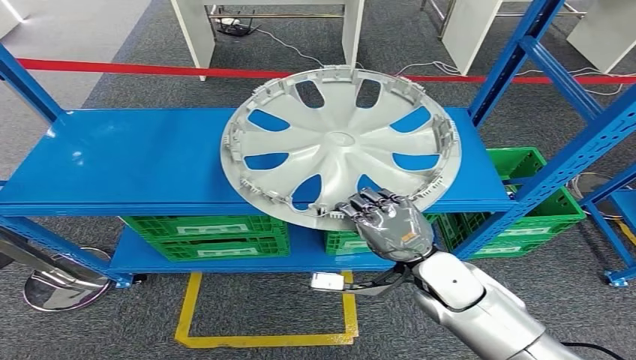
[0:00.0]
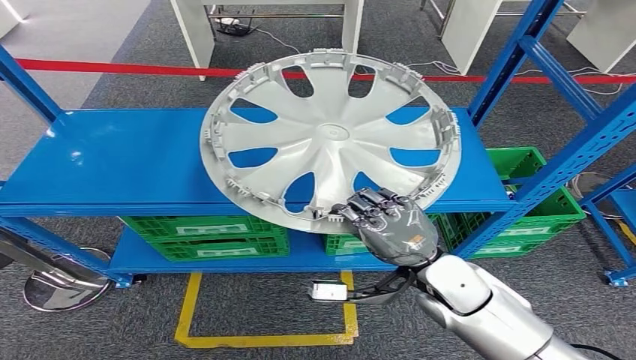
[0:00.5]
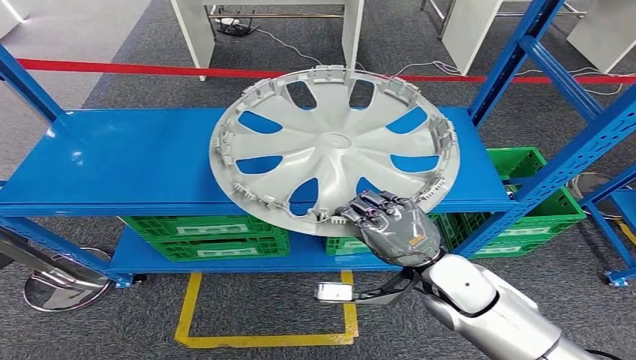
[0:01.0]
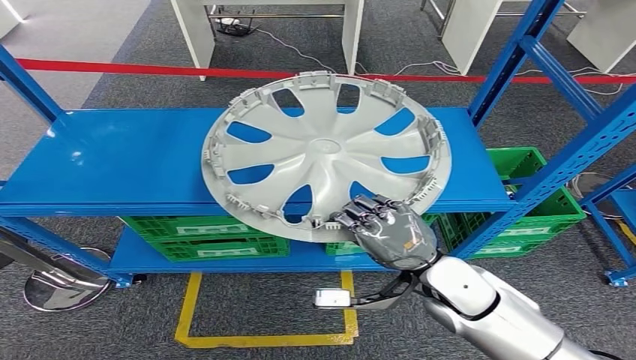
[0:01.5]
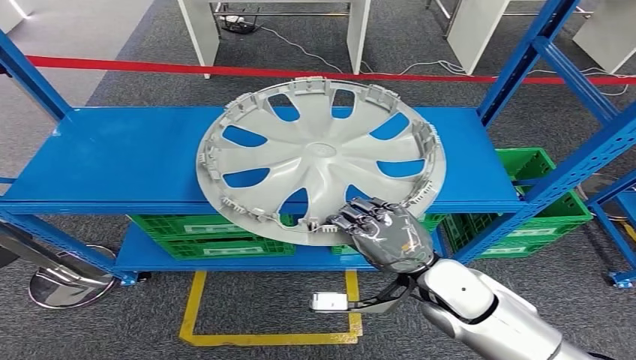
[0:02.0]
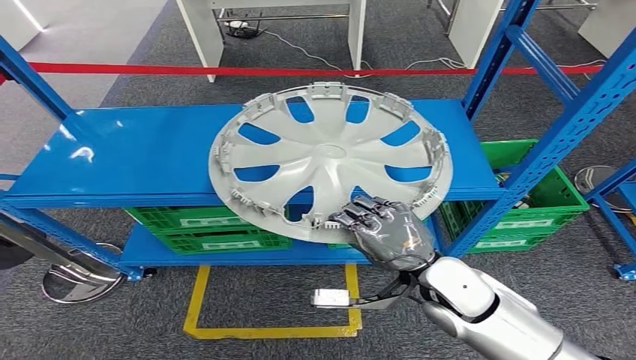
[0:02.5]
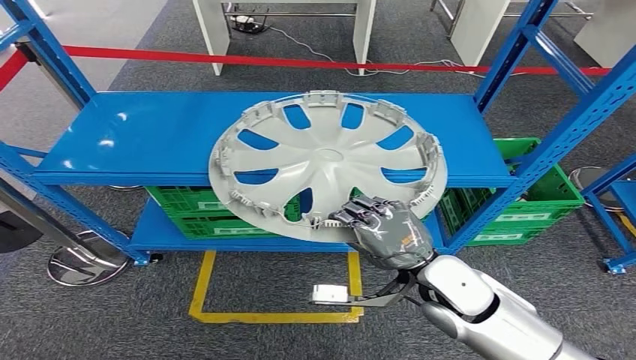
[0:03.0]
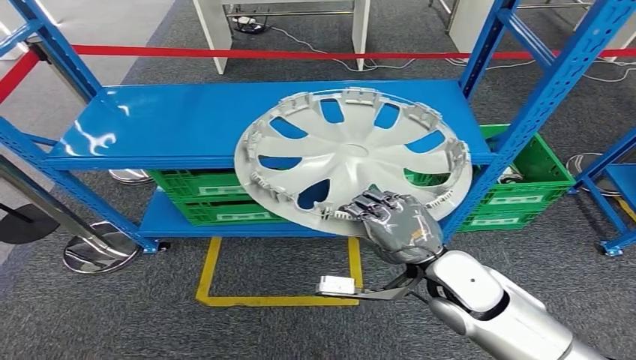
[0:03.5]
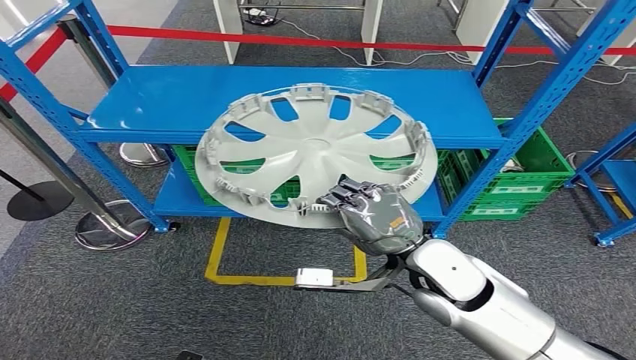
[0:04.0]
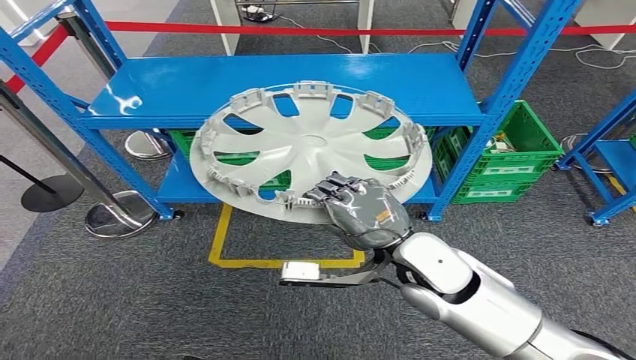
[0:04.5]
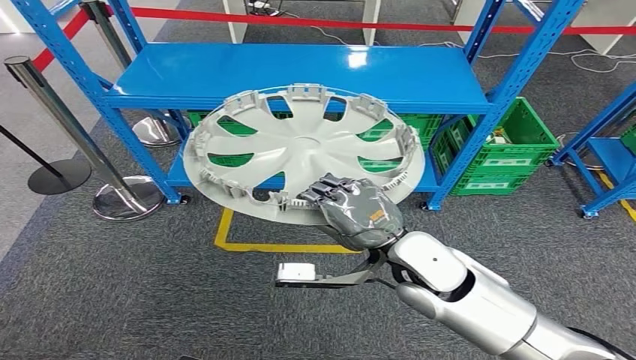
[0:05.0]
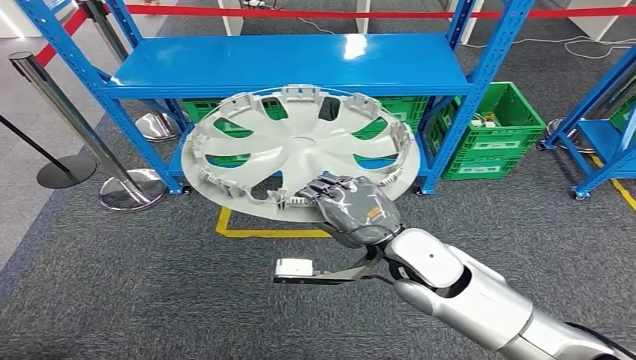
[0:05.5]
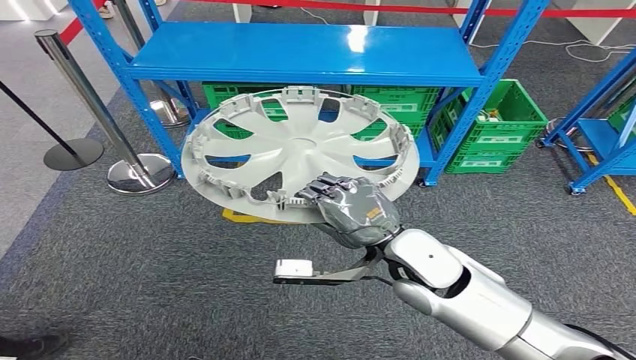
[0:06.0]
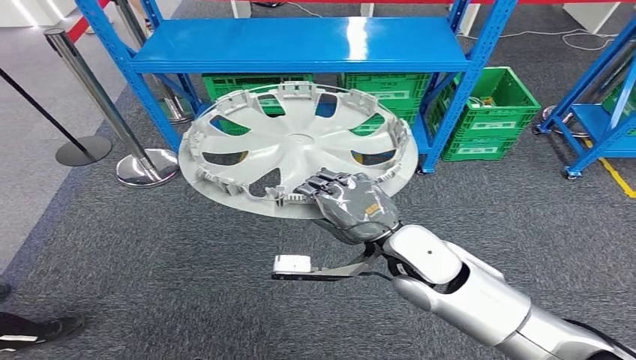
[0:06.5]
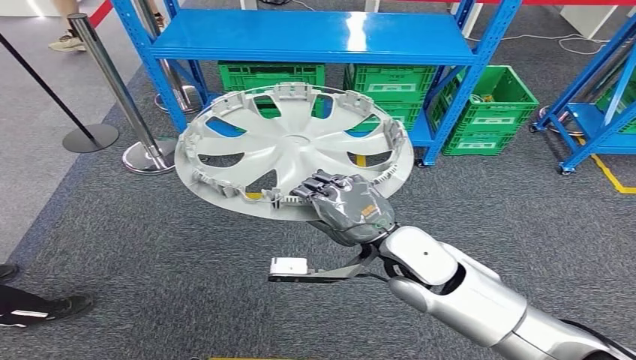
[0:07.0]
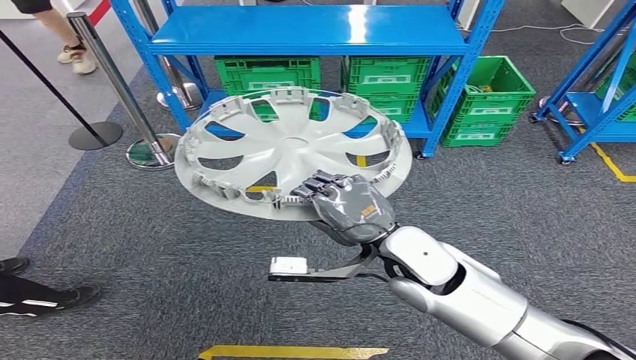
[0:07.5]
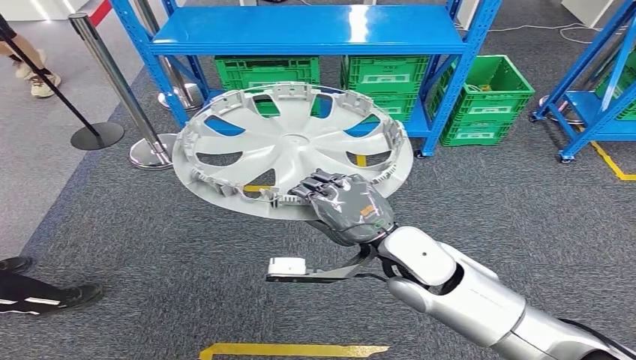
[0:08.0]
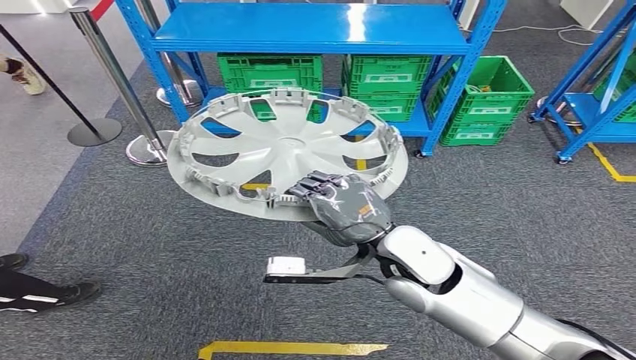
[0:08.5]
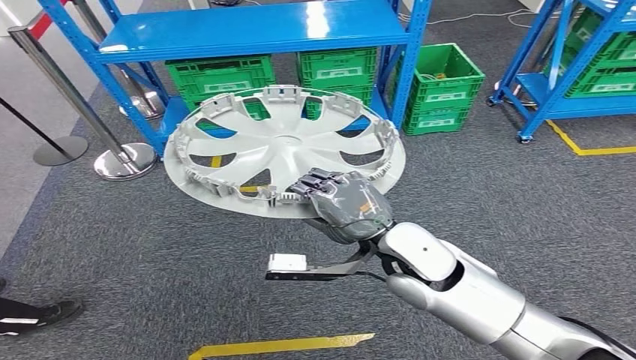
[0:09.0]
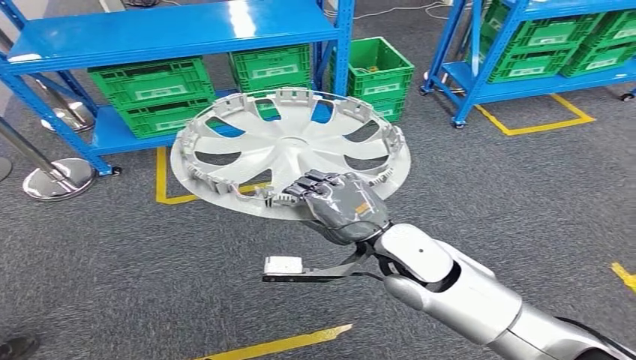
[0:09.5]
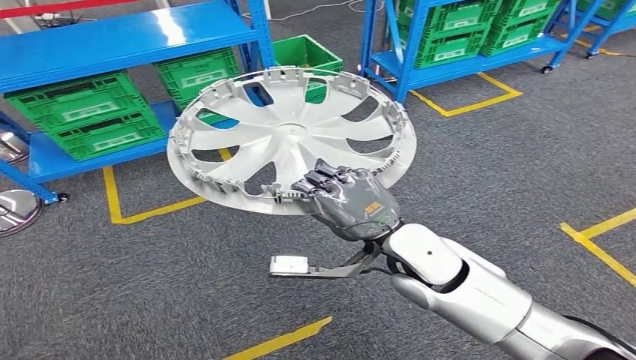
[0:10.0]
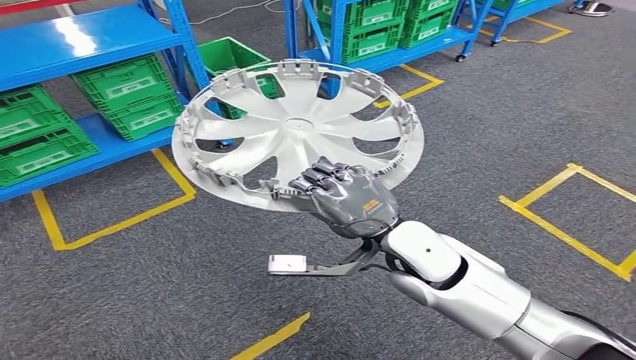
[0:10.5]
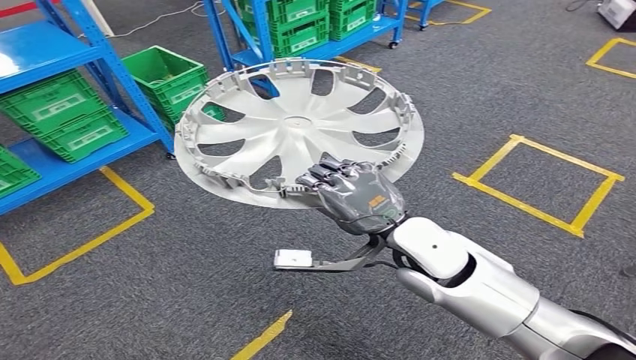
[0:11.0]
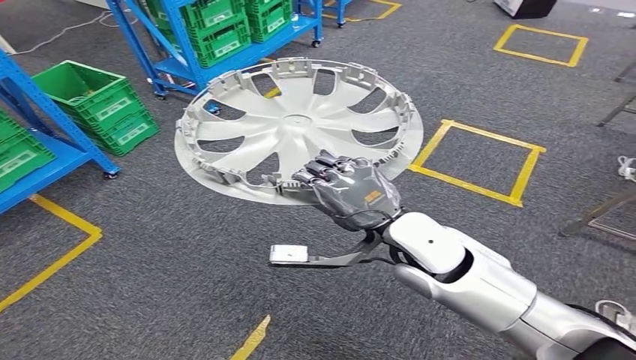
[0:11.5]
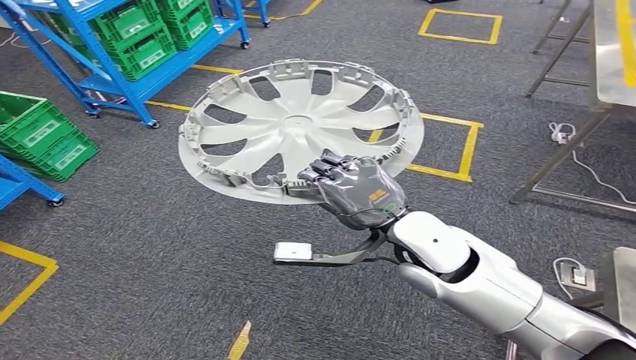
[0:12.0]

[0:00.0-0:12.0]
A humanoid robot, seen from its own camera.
Step, 0:00.0 to 0:04.5: Take small components from the rack.

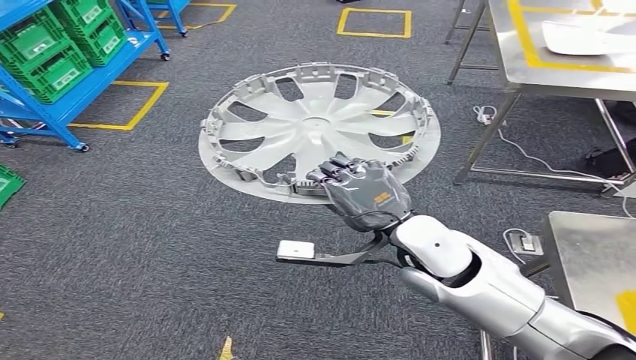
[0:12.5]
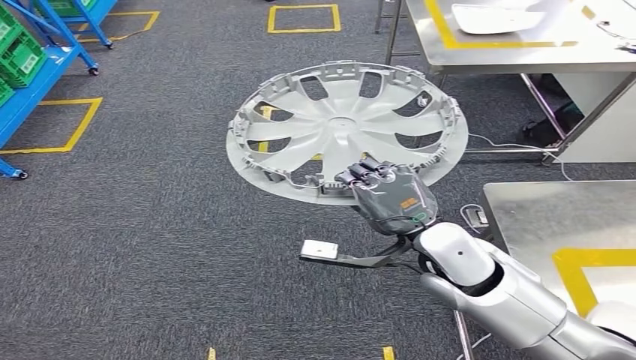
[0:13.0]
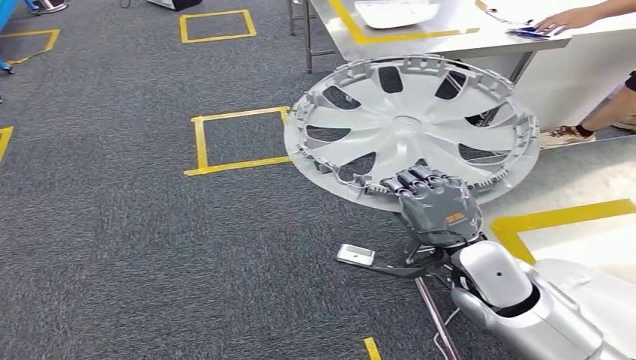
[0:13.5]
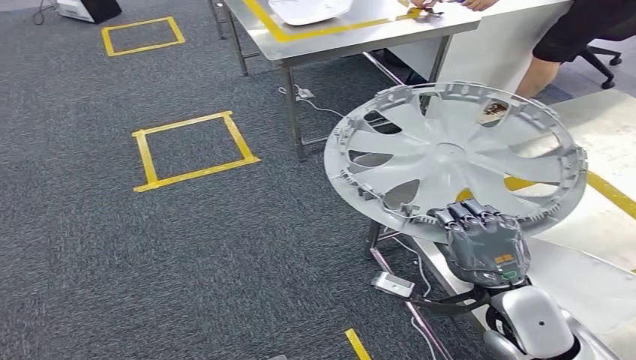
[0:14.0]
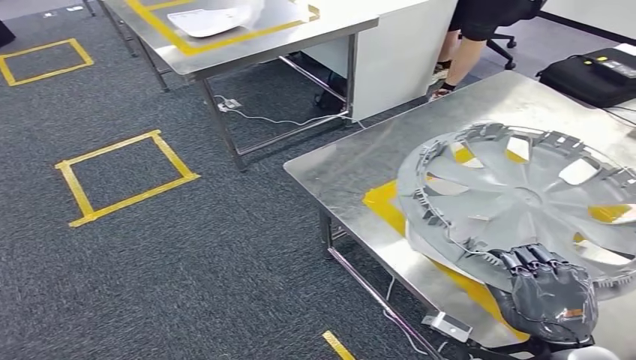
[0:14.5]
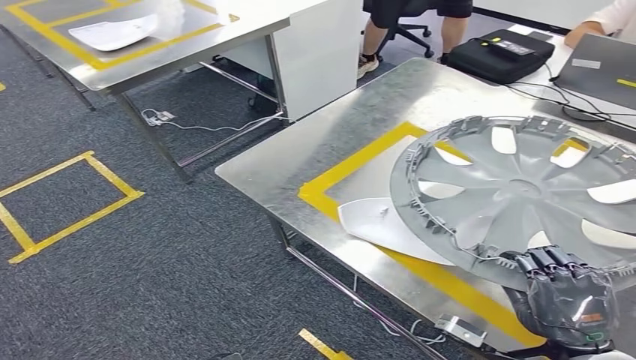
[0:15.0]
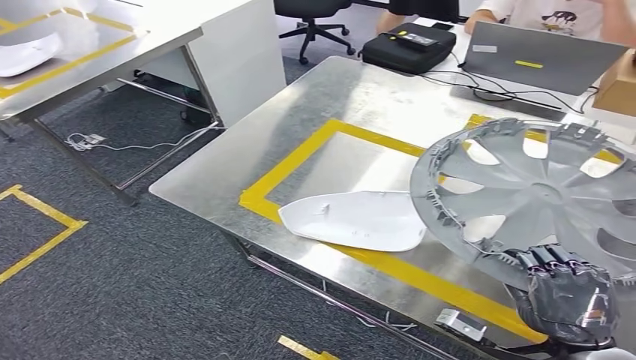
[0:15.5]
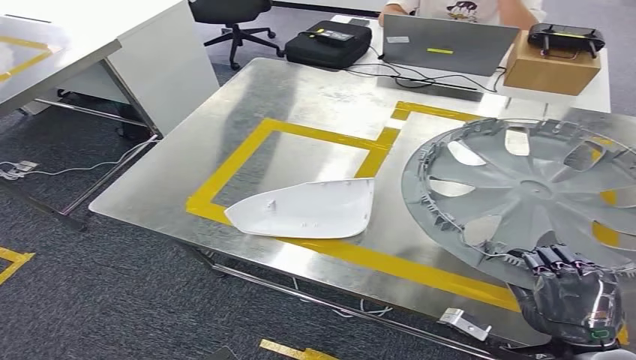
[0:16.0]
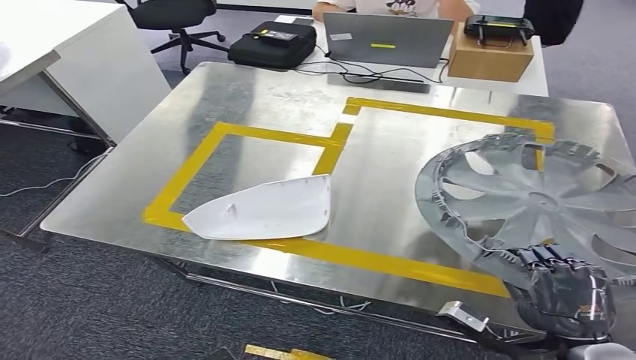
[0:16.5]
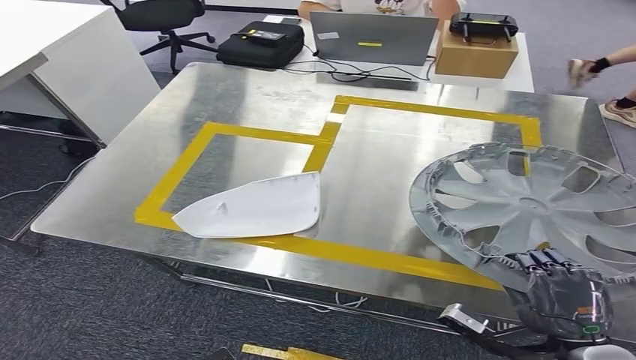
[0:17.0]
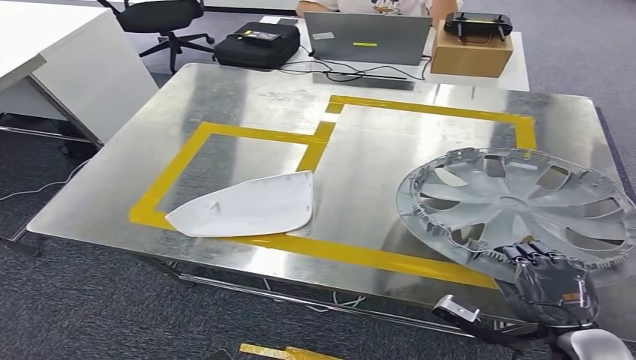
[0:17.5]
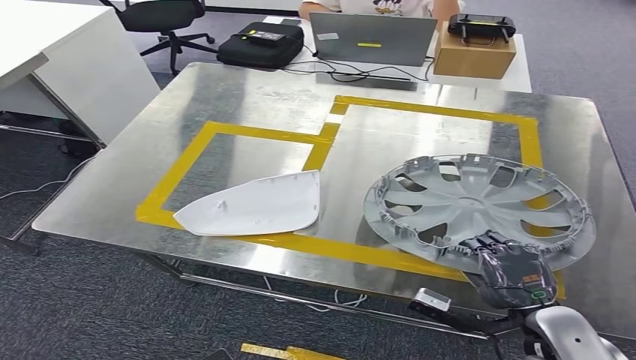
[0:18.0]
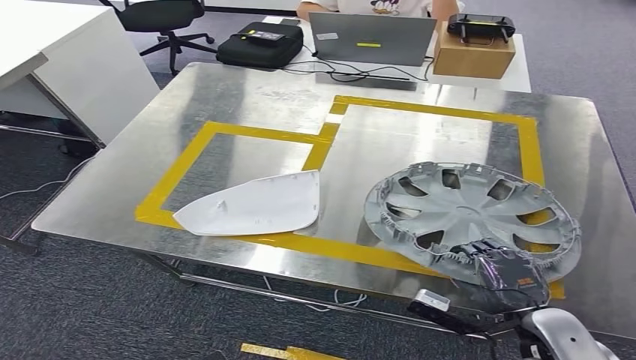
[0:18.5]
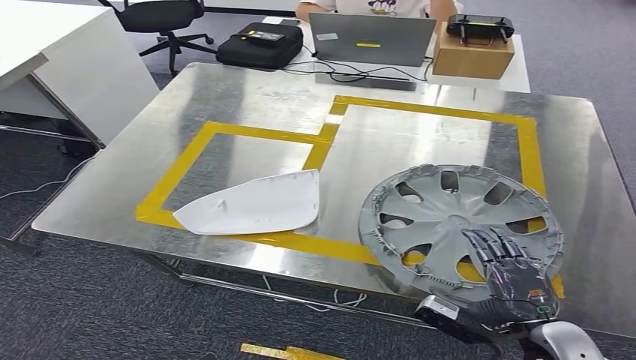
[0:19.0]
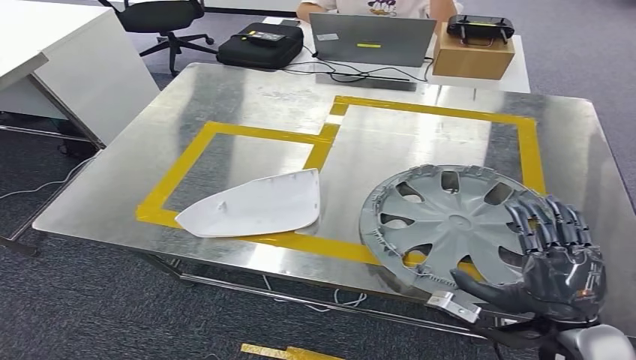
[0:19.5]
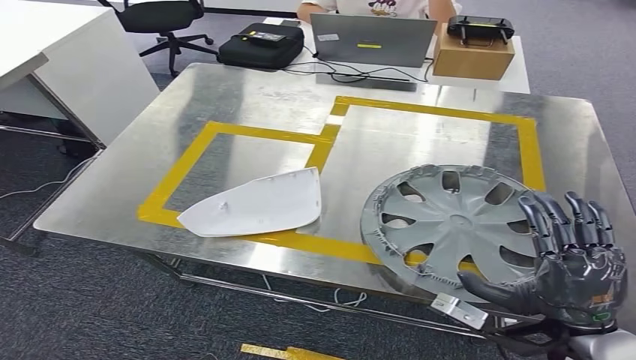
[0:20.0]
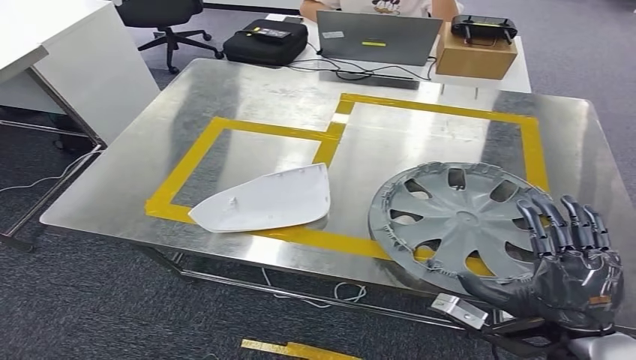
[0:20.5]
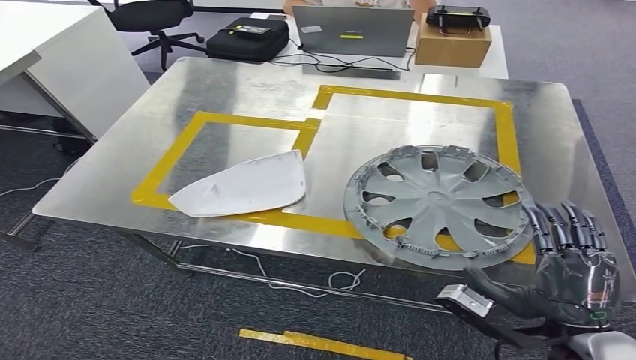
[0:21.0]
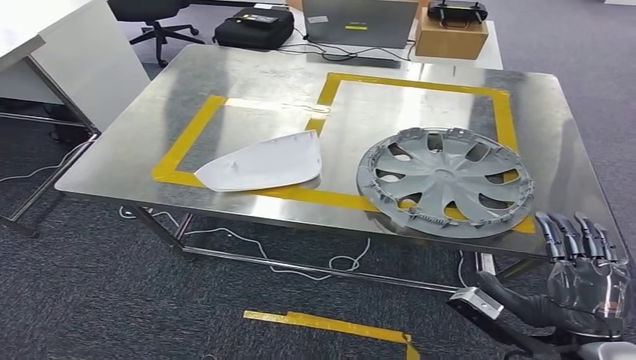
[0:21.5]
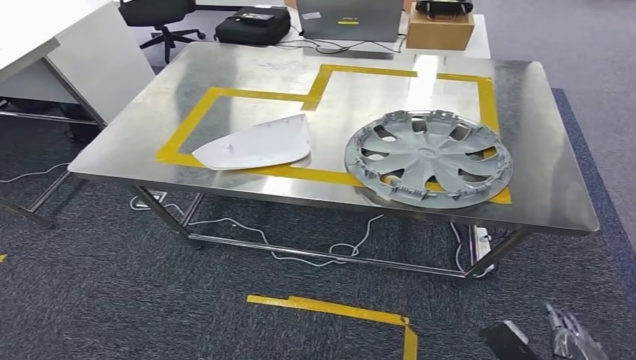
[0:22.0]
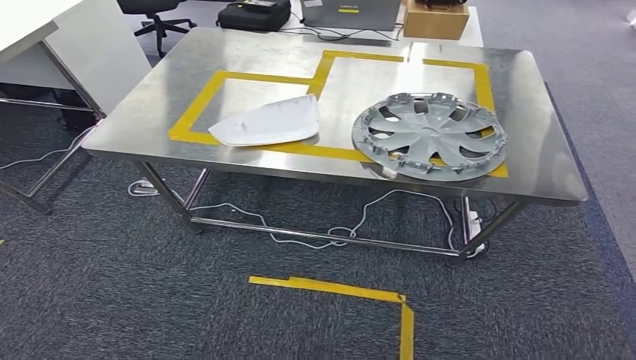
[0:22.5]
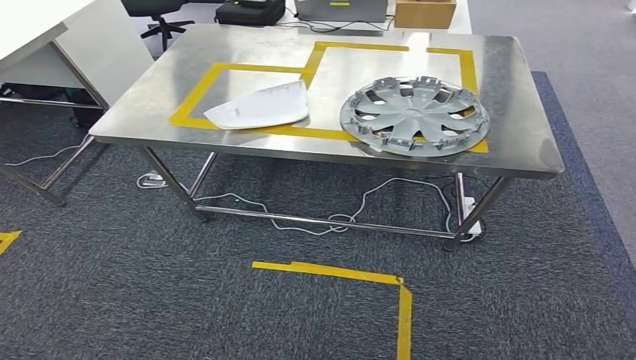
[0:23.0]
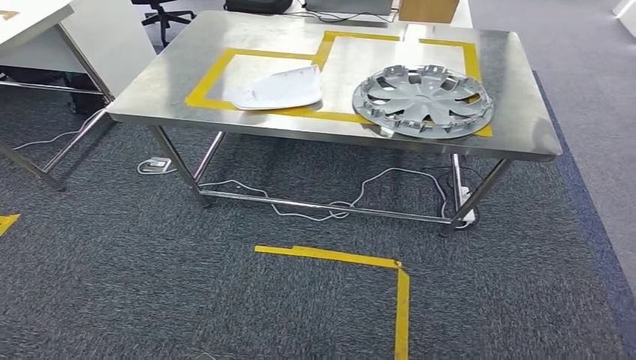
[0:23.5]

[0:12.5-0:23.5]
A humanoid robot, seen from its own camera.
Step, 0:12.5 to 0:16.5: Move the small parts to the workbench.
Step, 0:17.0 to 0:22.5: Insert the small parts into the corresponding holes on the workbench.
0:18.0 to 0:20.0: The right hand shifts approximately 5 cm upward.
